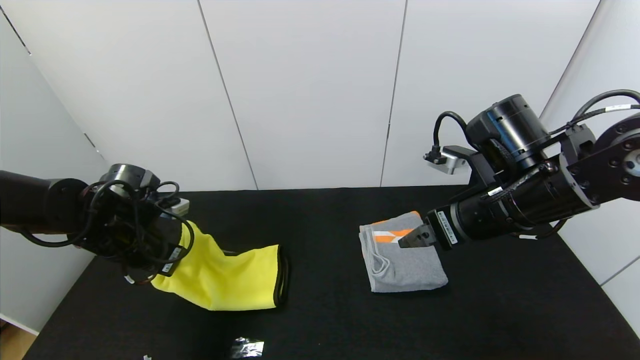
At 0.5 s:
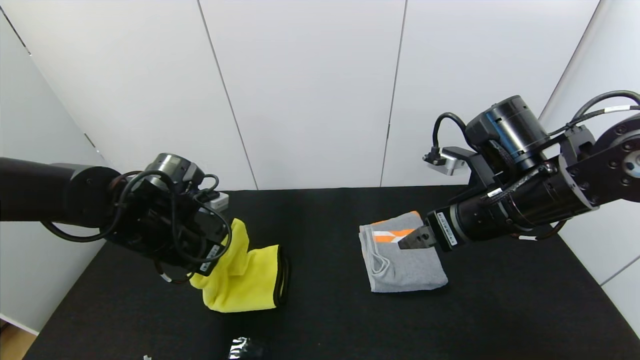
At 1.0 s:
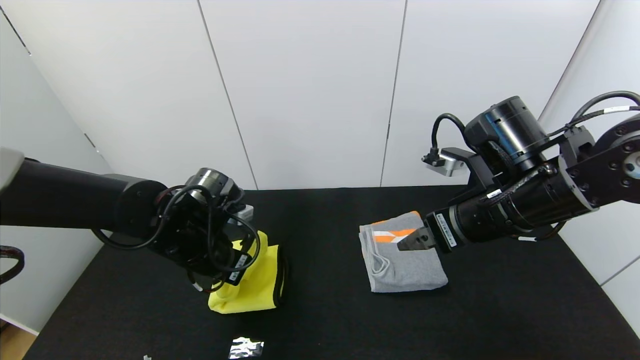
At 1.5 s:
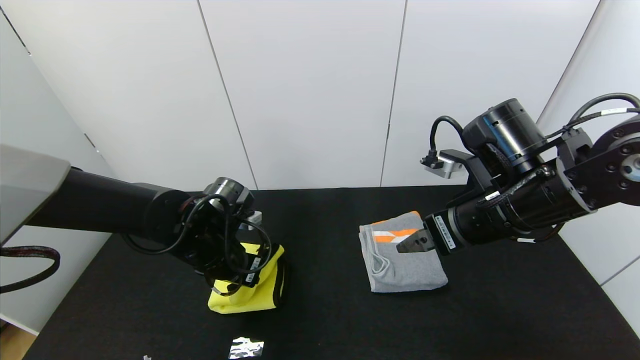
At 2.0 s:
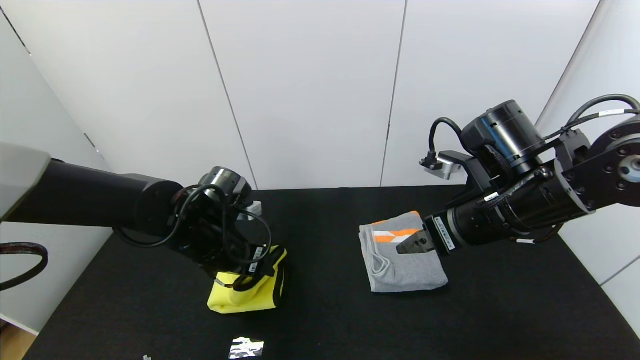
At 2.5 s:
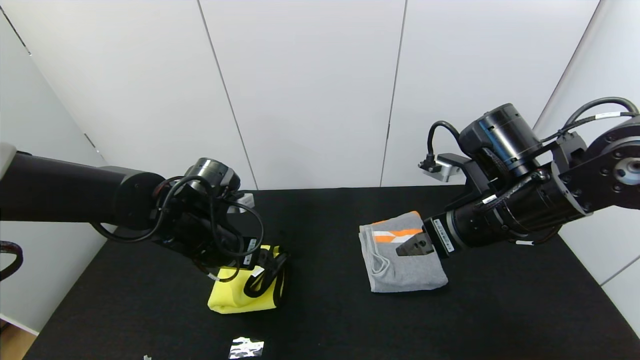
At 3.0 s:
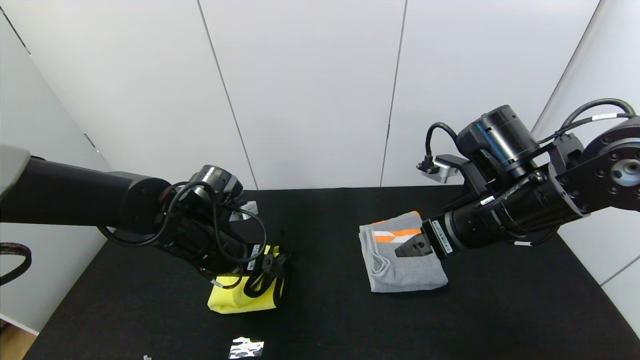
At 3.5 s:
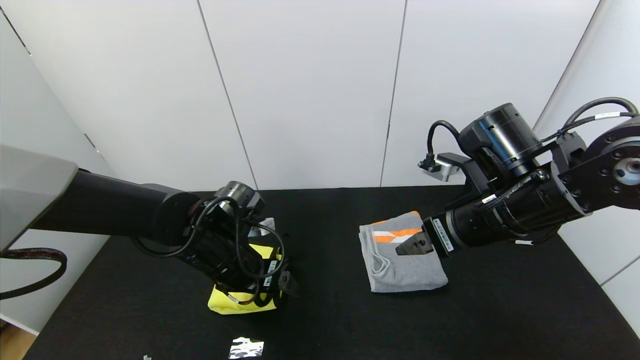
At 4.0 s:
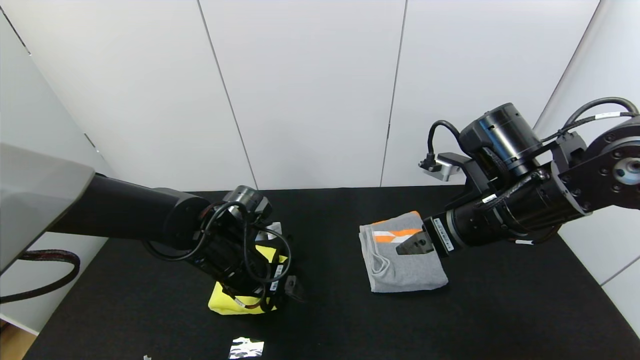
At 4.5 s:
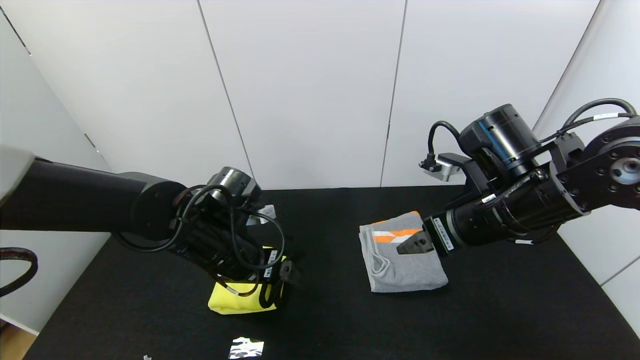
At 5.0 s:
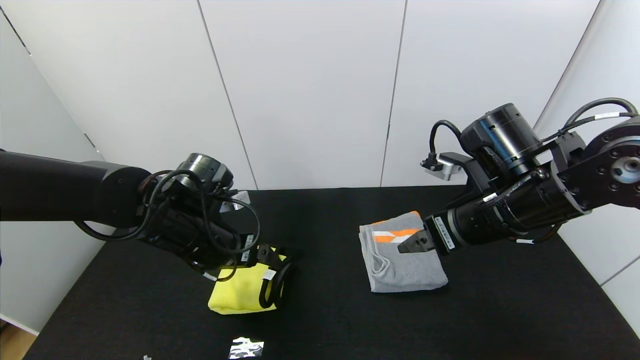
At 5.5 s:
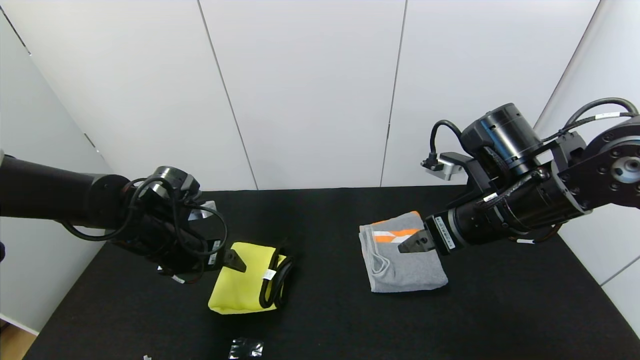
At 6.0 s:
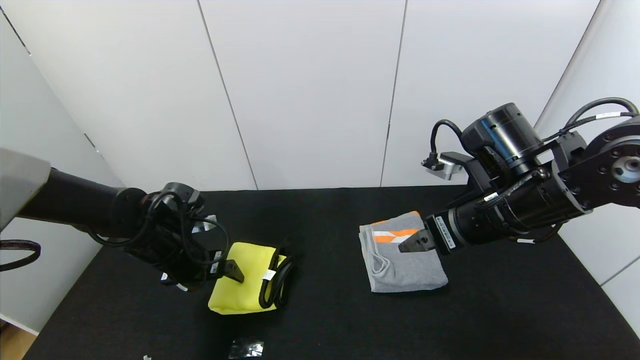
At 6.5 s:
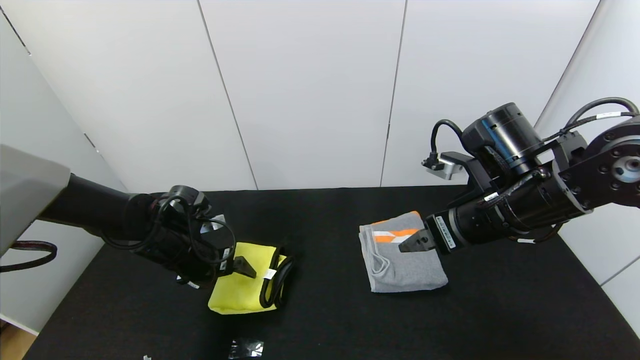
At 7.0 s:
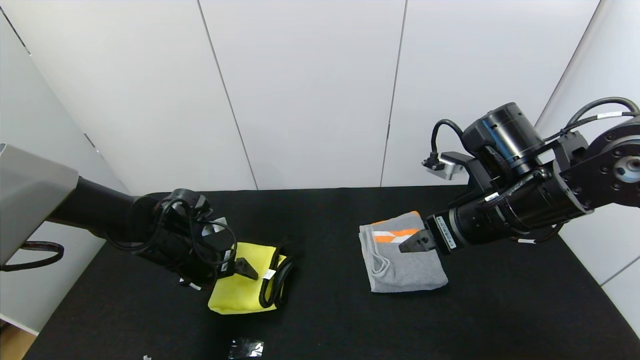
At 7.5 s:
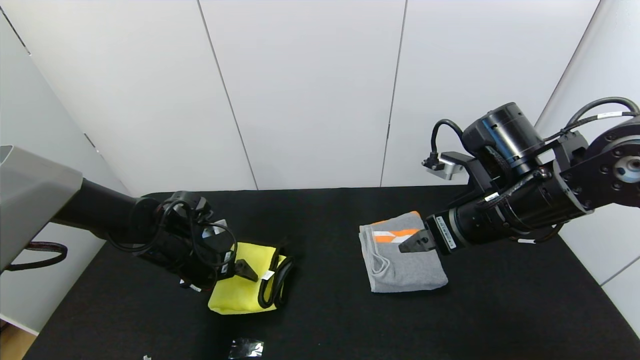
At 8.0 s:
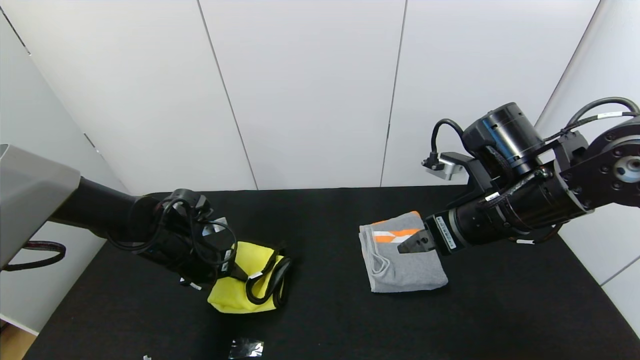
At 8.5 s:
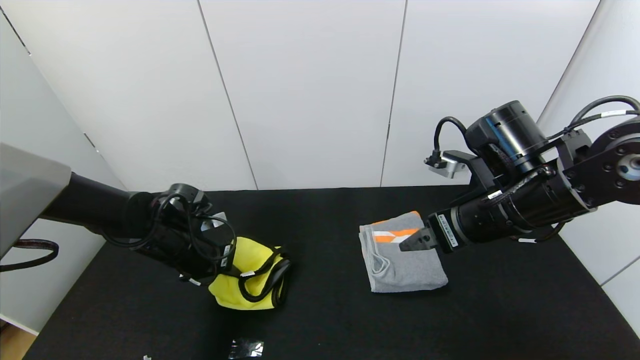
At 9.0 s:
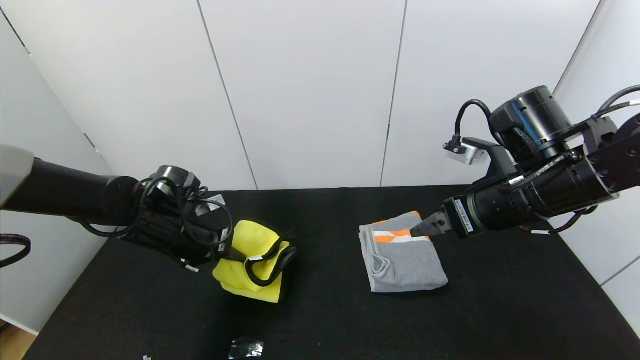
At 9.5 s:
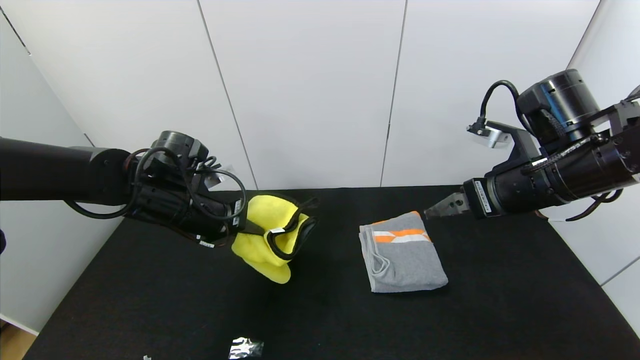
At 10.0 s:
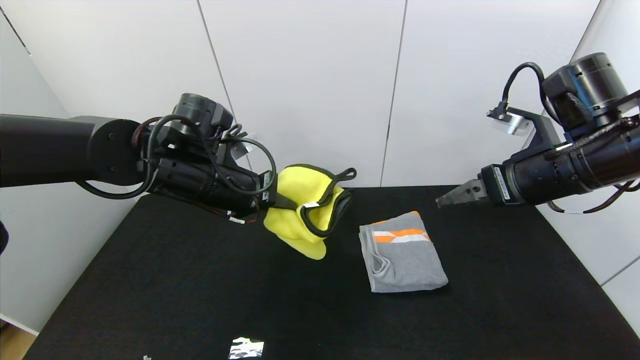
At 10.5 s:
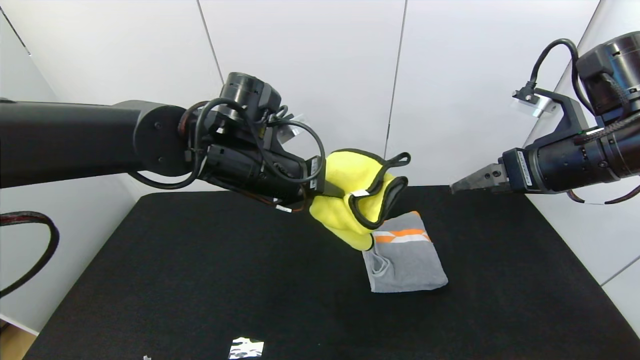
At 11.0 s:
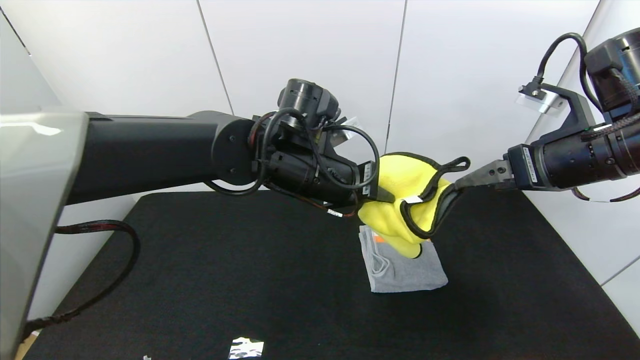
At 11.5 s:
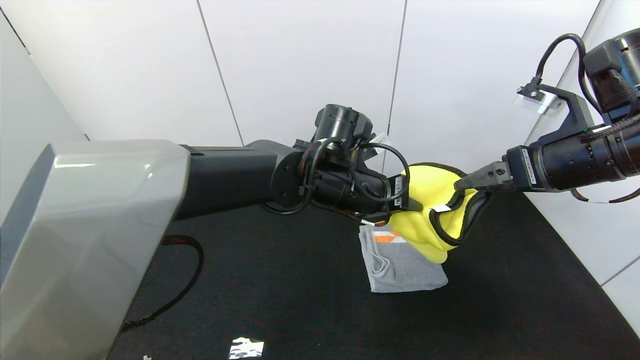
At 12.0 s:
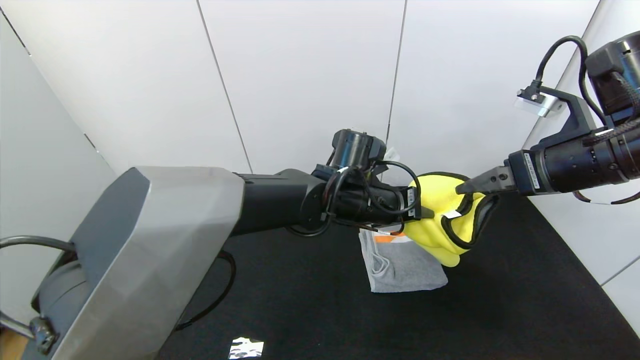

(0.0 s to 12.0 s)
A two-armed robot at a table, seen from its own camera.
Task of the whole recording: Use the gripper to fold the yellow towel and grey towel in half twice,then put the yellow towel on the grey towel.
Step, 0.0 s - 5.0 s: Fold the yellow towel from left to right with left gripper.
0.0 s - 2.0 s: The left gripper travels to the right by approximately 10 cm, and opens.
2.0 s - 4.0 s: The grippers move only a little.
4.0 s - 6.0 s: The left gripper travels to the left by some 10 cm.
6.0 s - 8.0 s: The left gripper closes up.
8.0 s - 10.0 s: The right gripper goes roughly 5 cm to the right; the left gripper shifts some 20 cm upward and to the right, and closes.
10.0 s - 12.0 s: The left gripper shifts about 20 cm to the right.

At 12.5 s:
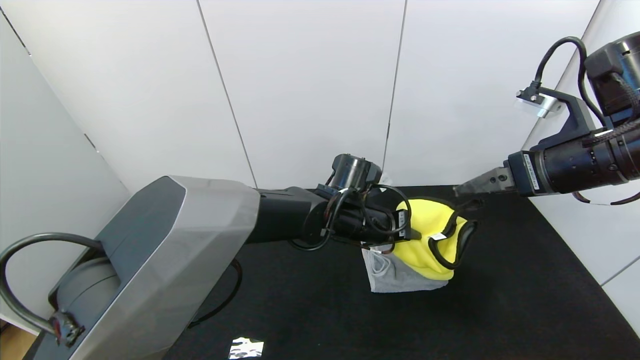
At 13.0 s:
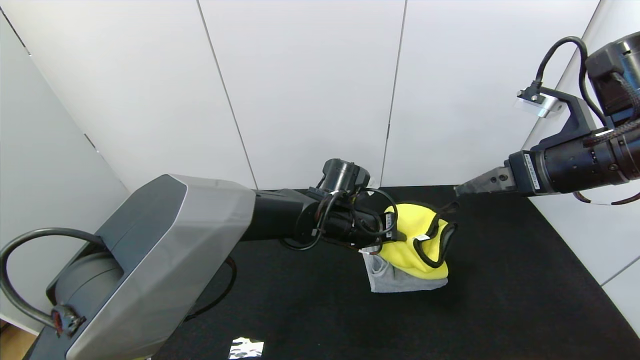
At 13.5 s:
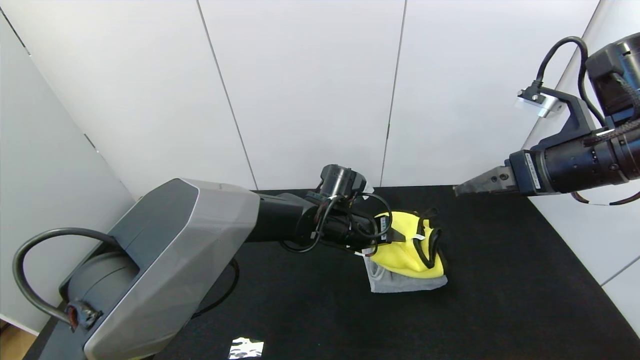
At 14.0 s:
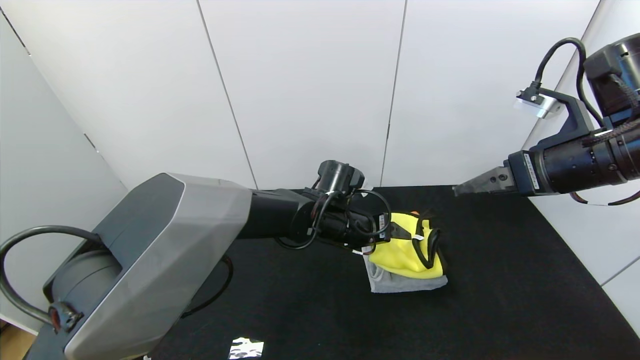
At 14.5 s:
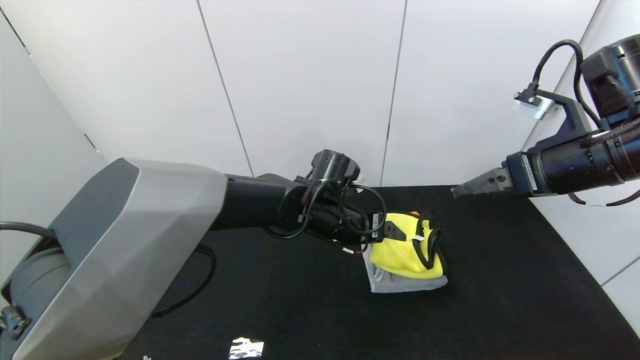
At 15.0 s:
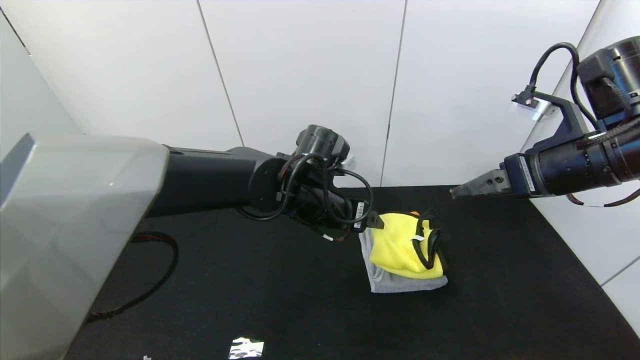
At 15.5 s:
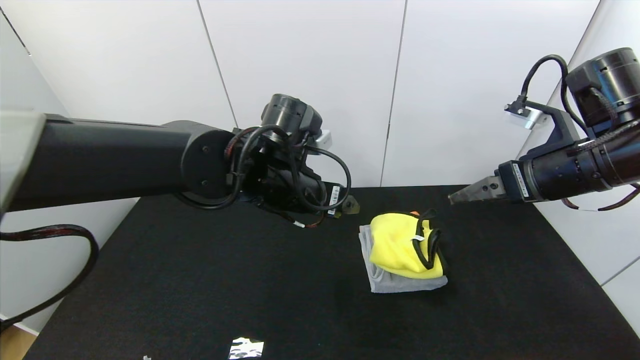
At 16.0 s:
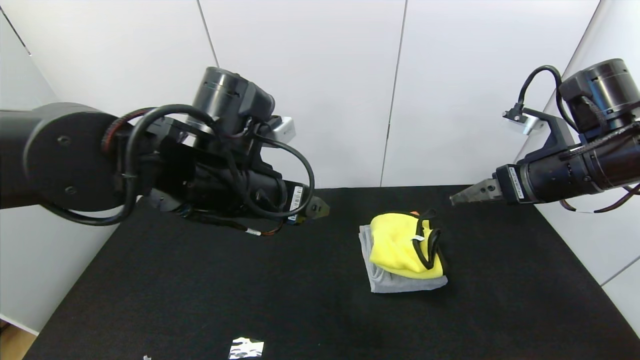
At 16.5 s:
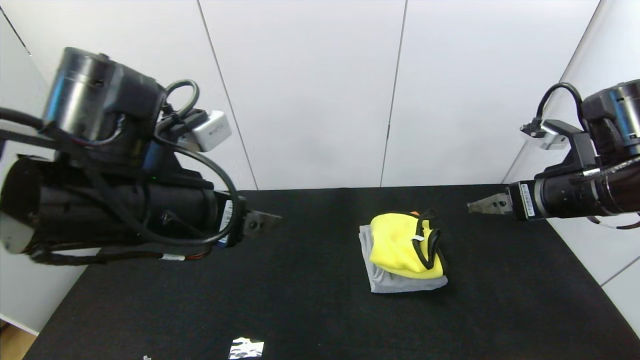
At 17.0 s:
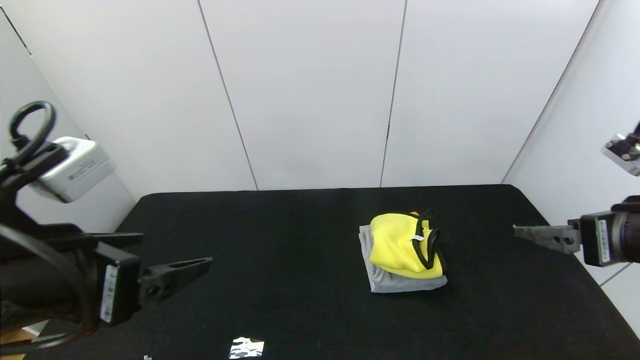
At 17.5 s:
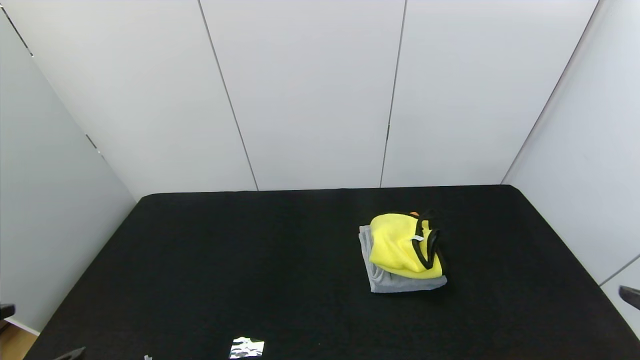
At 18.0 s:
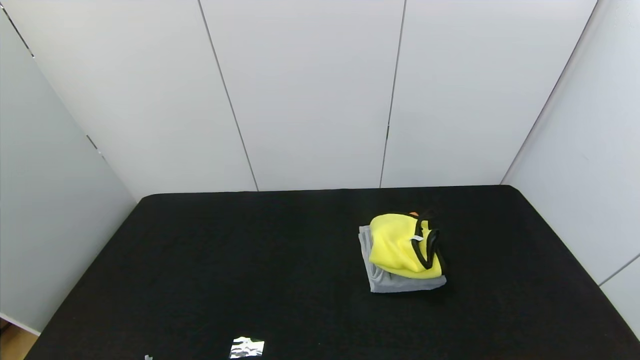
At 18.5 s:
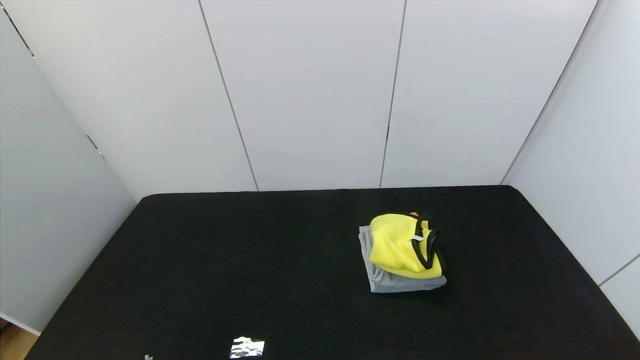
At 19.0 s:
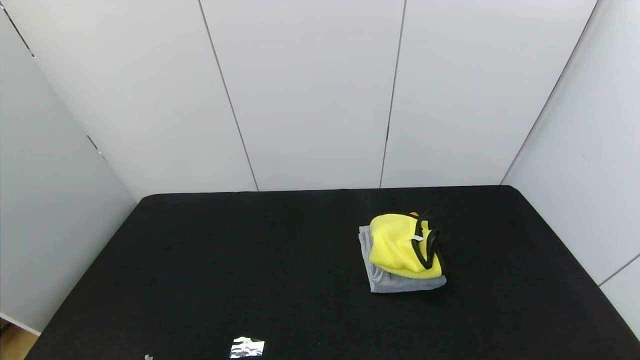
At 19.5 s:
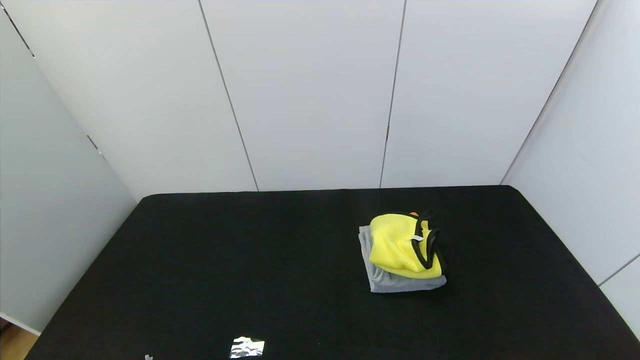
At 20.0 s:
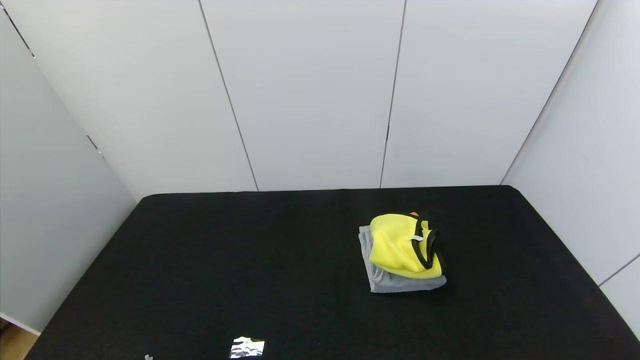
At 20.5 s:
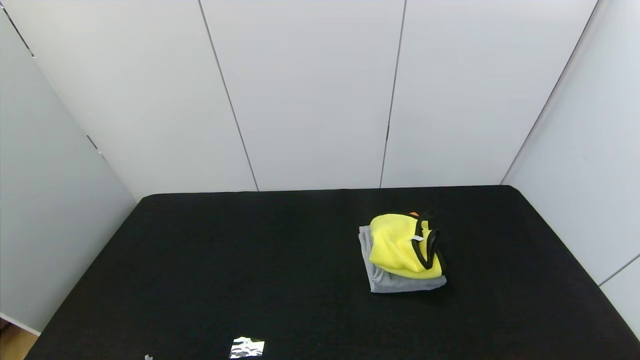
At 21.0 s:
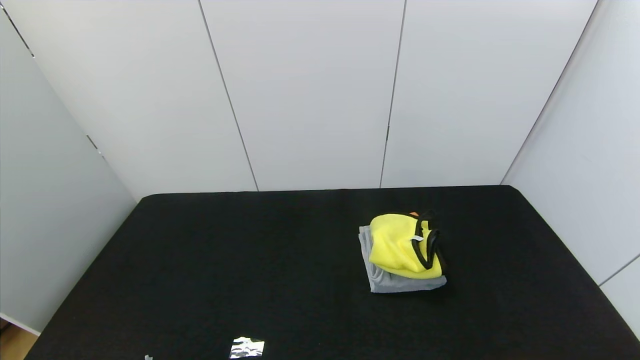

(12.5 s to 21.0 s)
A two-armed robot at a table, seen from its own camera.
Task of the whole recording: Use the gripper to fold the yellow towel and grey towel in half twice,then put the yellow towel on the grey towel.
Step, 12.5 s - 15.0 s: Place the yellow towel on the gray towel with the left gripper.
12.5 s - 14.5 s: The left gripper opens its fingers.
14.5 s - 16.5 s: The left gripper travels backward, to the left and upward by roughly 25 cm.
16.5 s - 19.0 s: The left gripper shifts roughly 35 cm backward and to the left, while the right gripper travels backward by about 35 cm.
